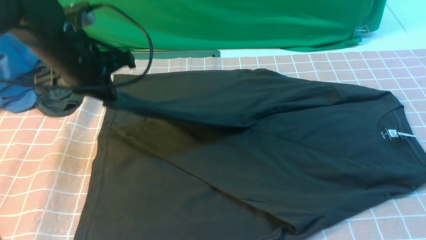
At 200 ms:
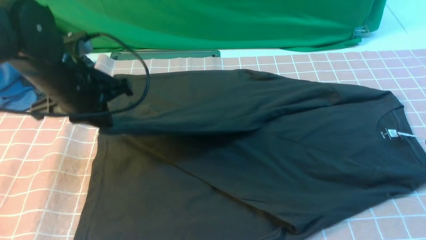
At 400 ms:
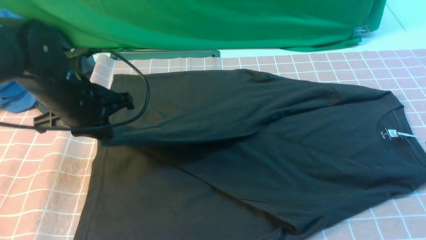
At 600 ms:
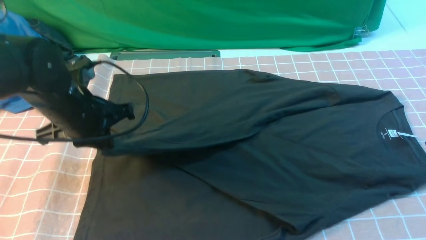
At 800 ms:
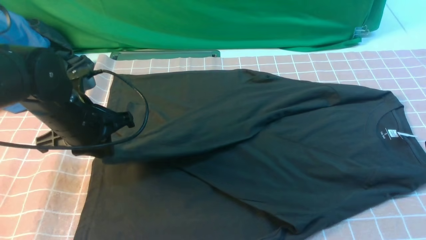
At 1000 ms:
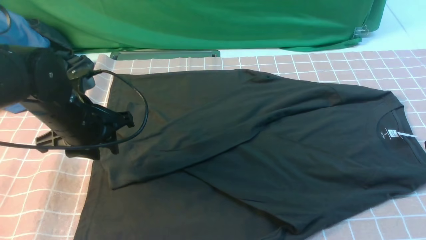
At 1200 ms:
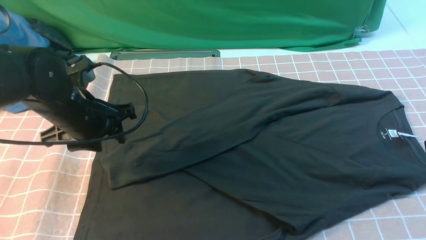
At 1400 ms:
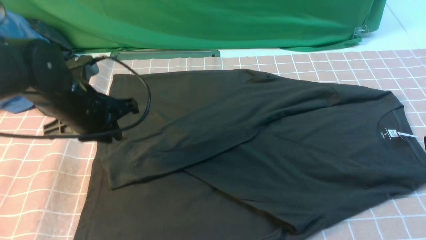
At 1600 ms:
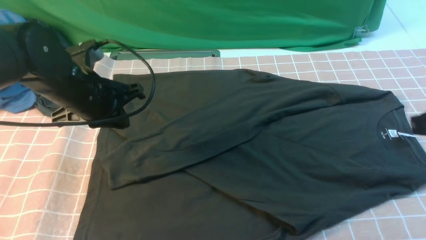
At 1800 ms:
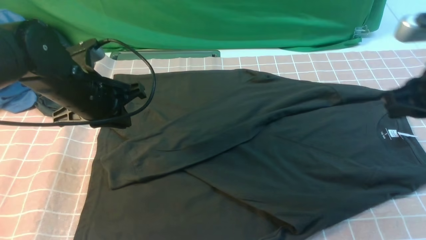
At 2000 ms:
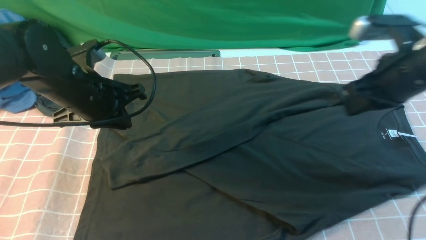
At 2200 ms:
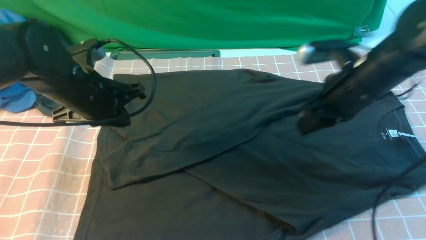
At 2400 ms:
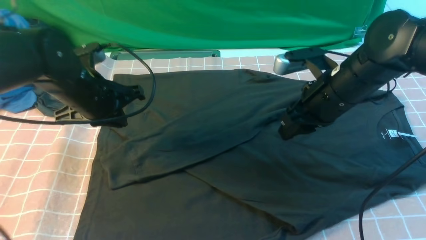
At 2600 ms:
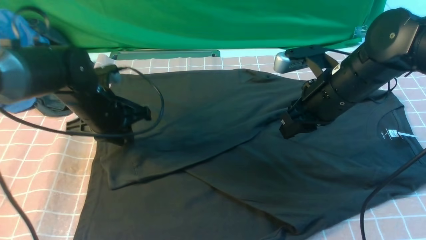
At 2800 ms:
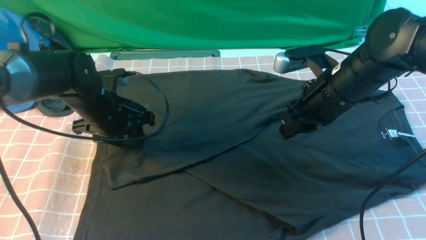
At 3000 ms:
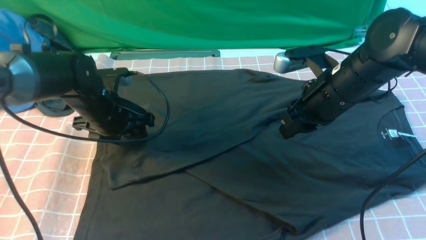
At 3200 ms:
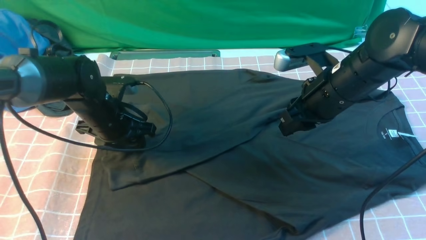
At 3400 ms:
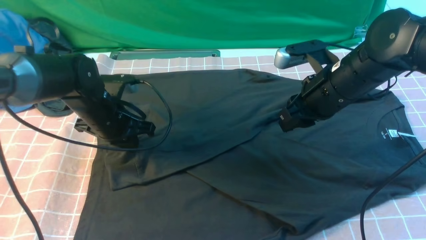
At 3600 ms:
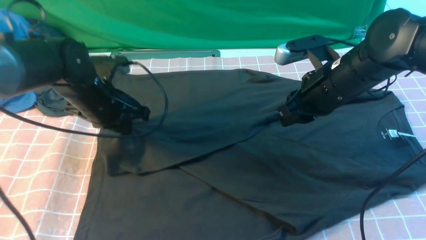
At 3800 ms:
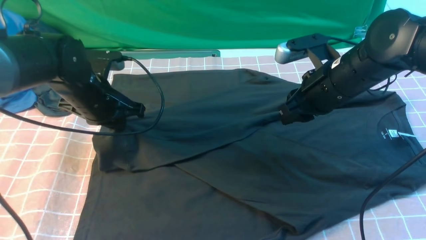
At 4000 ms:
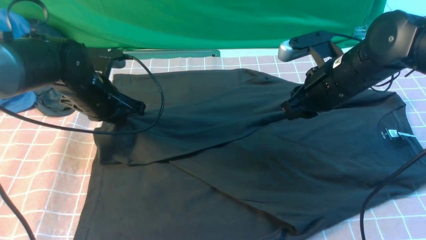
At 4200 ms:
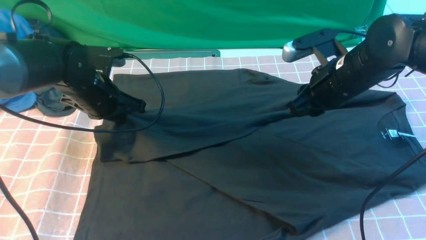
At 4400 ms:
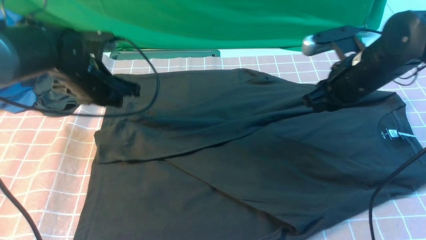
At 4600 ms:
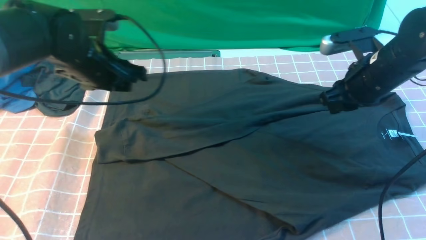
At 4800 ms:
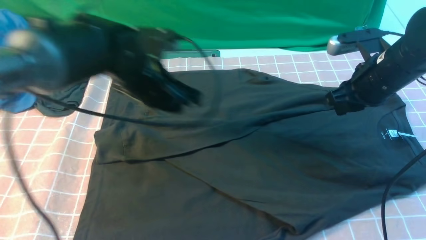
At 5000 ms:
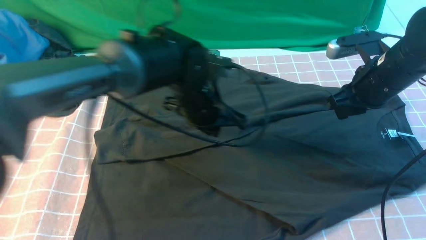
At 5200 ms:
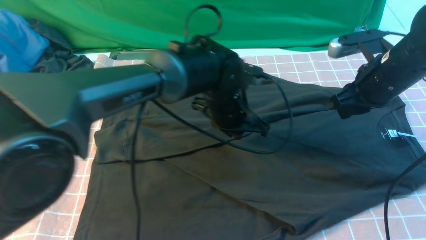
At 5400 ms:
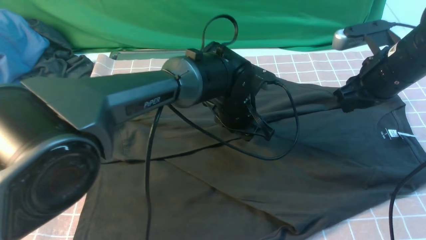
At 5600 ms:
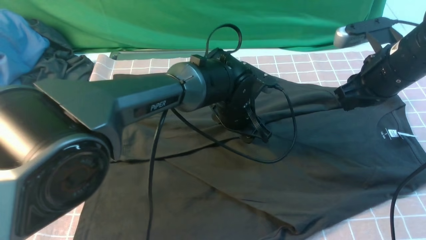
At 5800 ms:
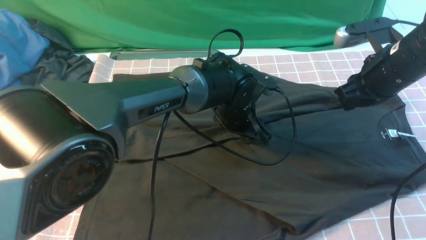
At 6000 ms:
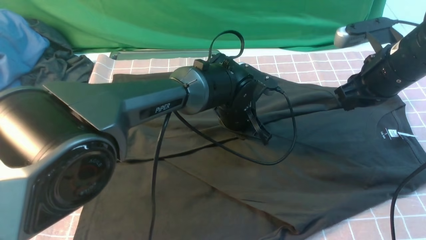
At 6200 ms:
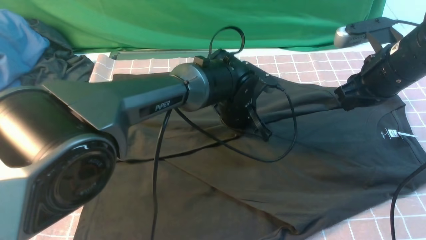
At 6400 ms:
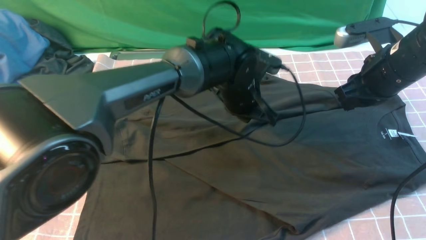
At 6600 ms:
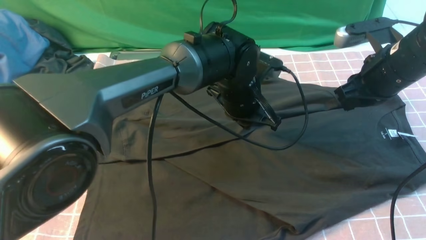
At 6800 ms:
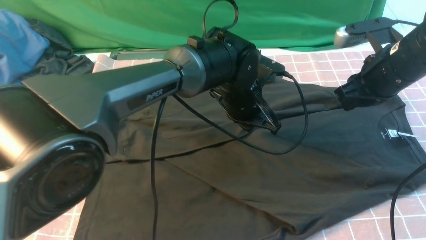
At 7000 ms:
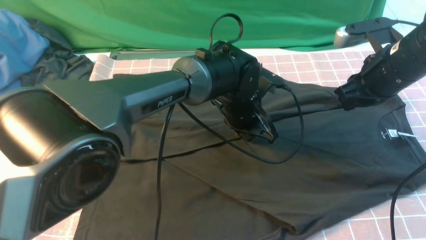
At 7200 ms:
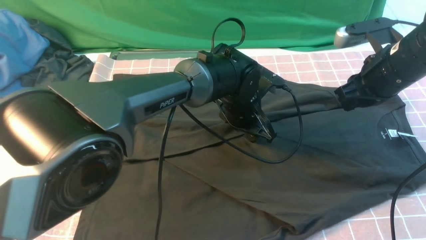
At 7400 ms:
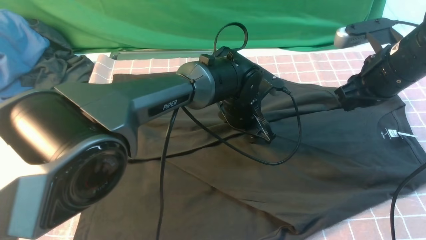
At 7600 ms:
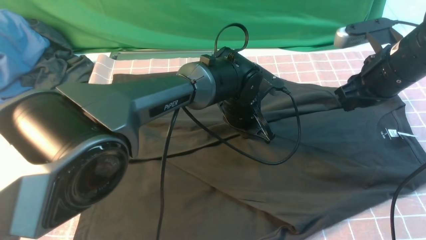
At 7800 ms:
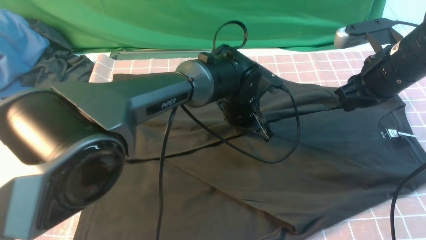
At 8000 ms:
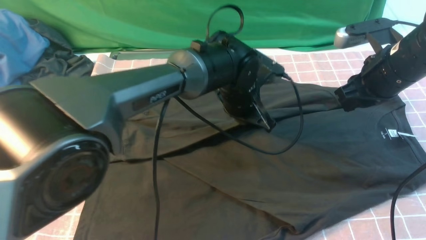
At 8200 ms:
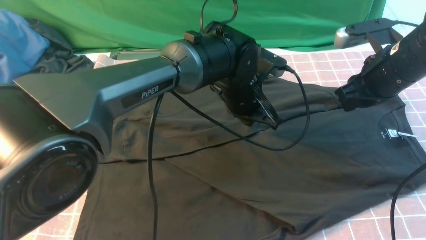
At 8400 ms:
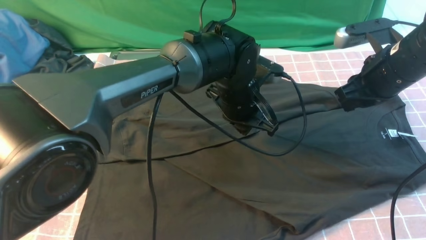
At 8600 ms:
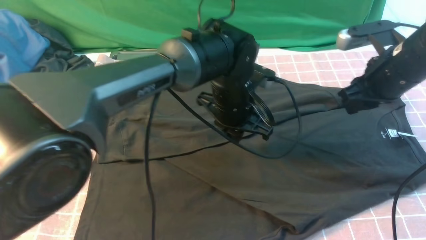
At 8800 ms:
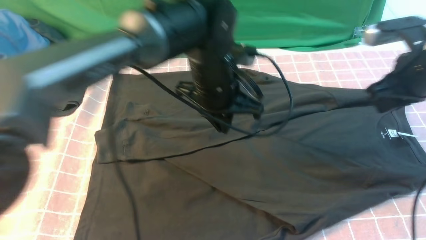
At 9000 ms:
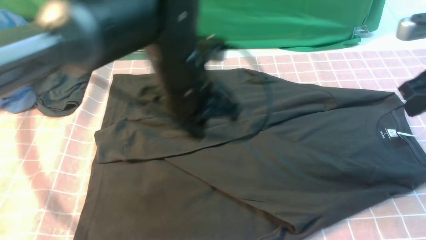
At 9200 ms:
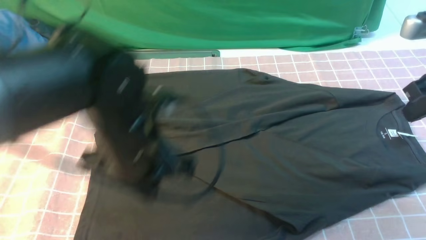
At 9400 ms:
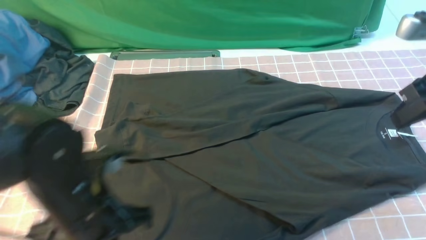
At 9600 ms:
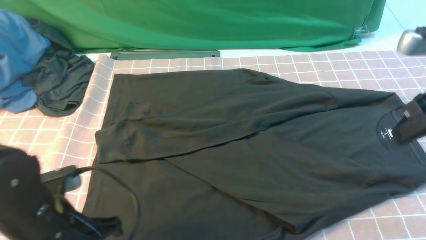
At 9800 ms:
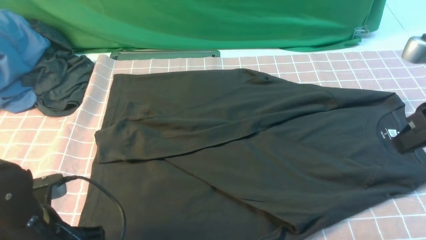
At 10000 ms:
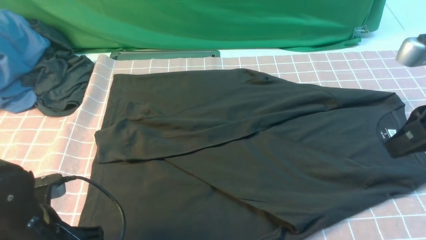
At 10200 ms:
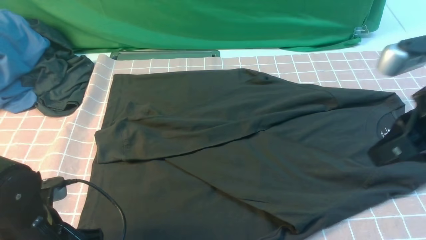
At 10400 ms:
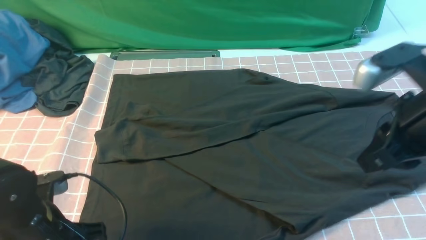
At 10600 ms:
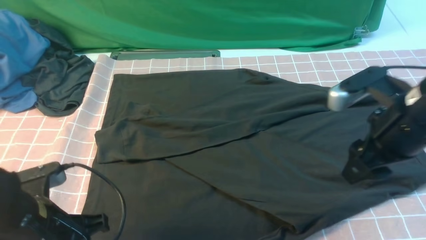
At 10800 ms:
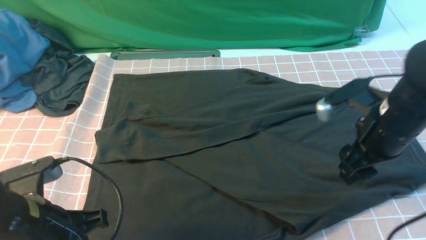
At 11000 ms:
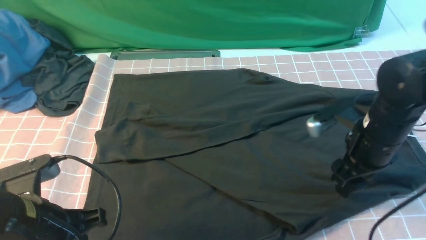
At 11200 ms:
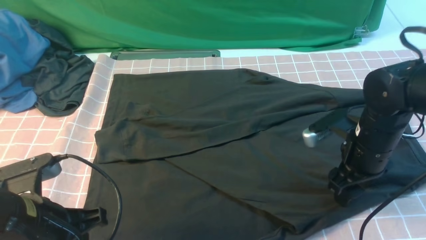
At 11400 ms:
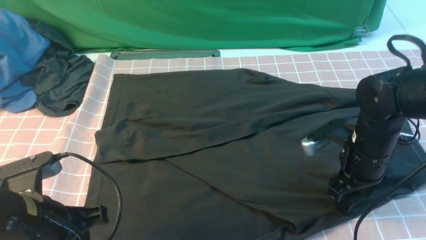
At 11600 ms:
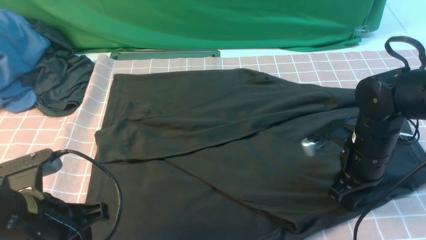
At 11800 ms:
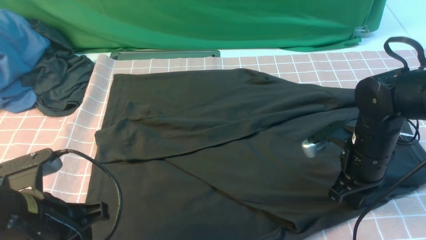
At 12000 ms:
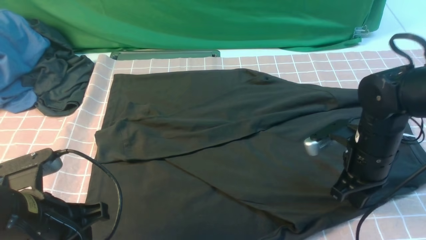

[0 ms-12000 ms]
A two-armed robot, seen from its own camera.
0 ms to 1600 ms: The left gripper opens and closes again. The right gripper travels forward by some 5 cm.
1600 ms to 3000 ms: The left gripper shifts some 10 cm downward, and opens its fingers. The right gripper goes about 20 cm forward, to the left and downward, and opens its fingers.
3000 ms to 4400 ms: The left gripper is displaced upward by roughly 5 cm, and closes its fingers. The right gripper moves about 5 cm.
4400 ms to 6000 ms: The left gripper is displaced to the right by roughly 25 cm, and opens, then closes once more.
6000 ms to 7600 ms: The left gripper closes, then reopens.
7600 ms to 9000 ms: The right gripper goes some 5 cm to the right, and closes. Meanwhile the left gripper shifts some 20 cm upward, backward and to the left, and closes.
9000 ms to 10400 ms: The right gripper heads to the left and backward, covering about 10 cm, and opens up. Meanwhile the left gripper is displaced to the left, backward and downward by some 20 cm, and opens its fingers.
10400 ms to 12000 ms: The left gripper closes. The right gripper shifts roughly 15 cm downward and forward, and closes.

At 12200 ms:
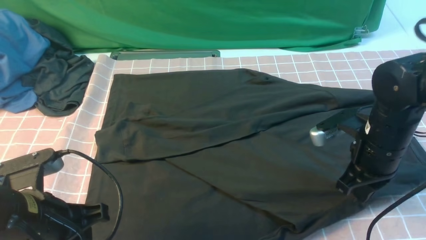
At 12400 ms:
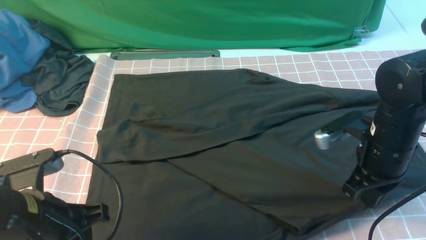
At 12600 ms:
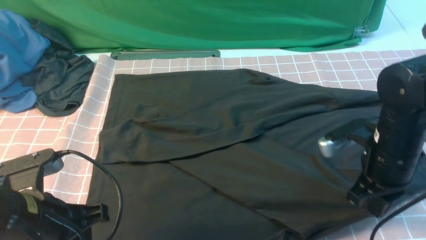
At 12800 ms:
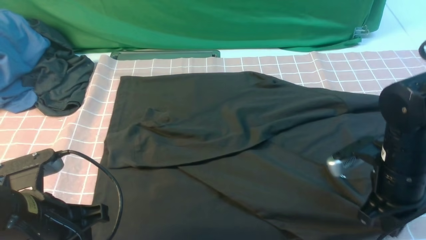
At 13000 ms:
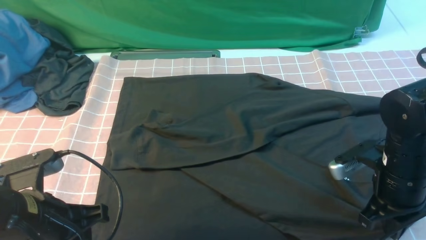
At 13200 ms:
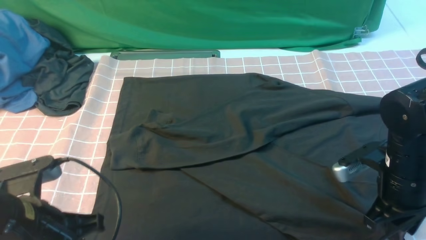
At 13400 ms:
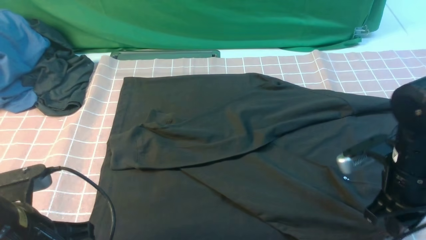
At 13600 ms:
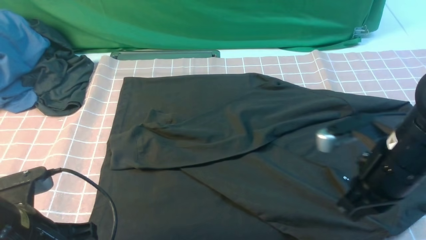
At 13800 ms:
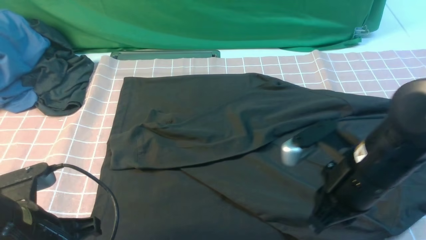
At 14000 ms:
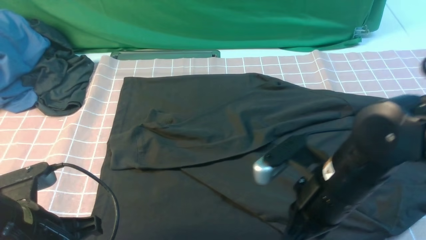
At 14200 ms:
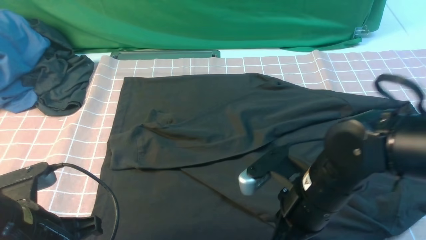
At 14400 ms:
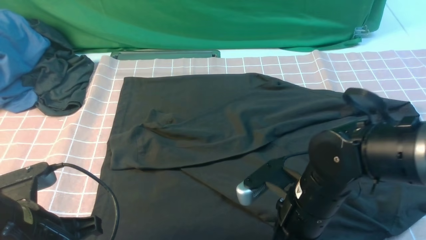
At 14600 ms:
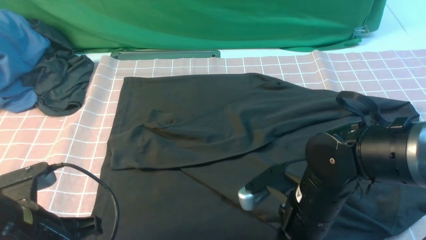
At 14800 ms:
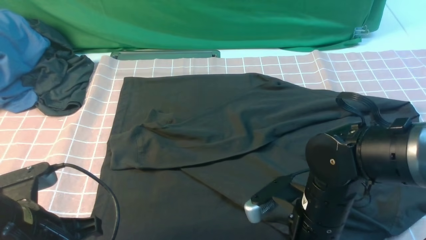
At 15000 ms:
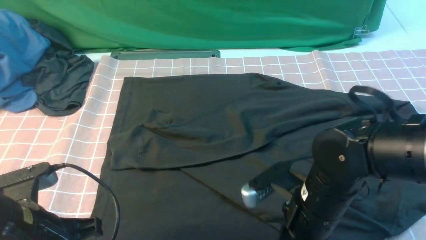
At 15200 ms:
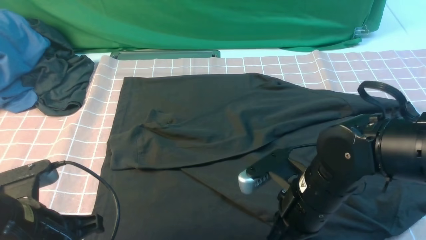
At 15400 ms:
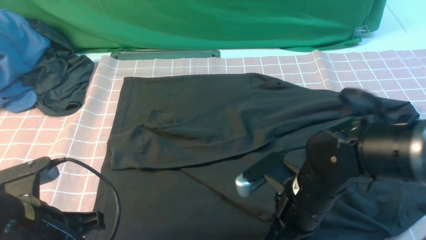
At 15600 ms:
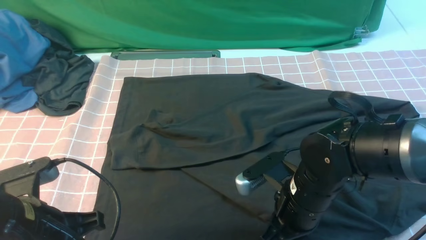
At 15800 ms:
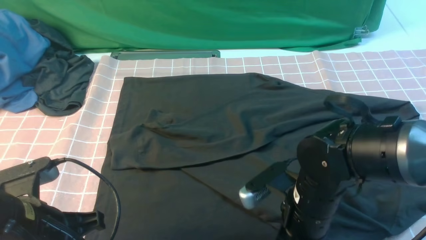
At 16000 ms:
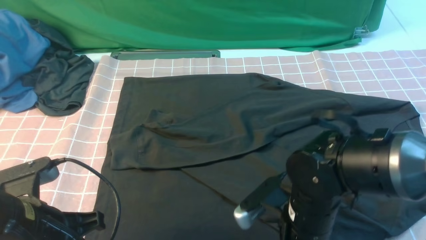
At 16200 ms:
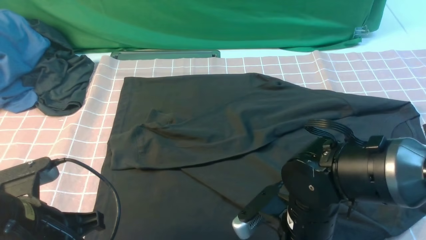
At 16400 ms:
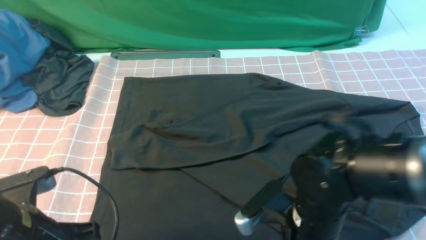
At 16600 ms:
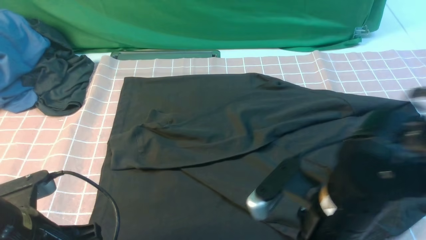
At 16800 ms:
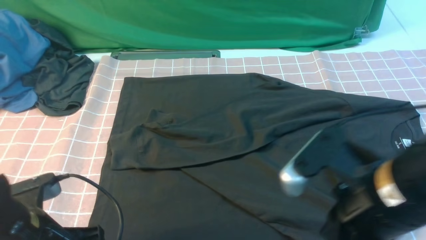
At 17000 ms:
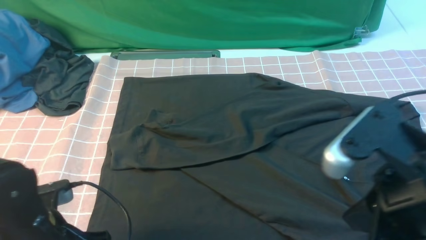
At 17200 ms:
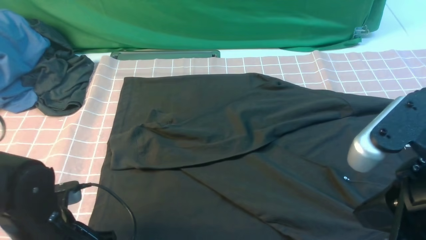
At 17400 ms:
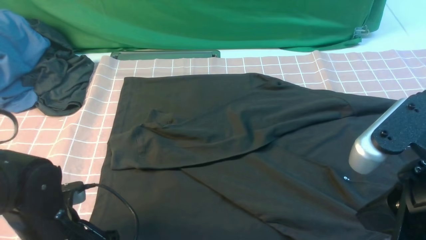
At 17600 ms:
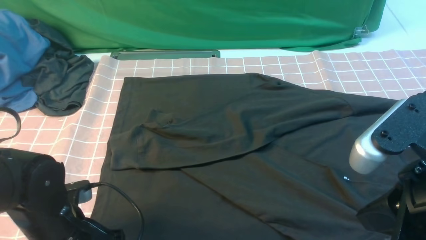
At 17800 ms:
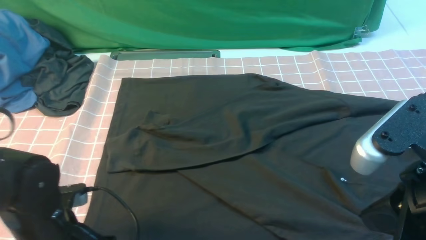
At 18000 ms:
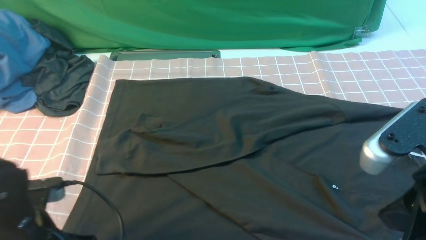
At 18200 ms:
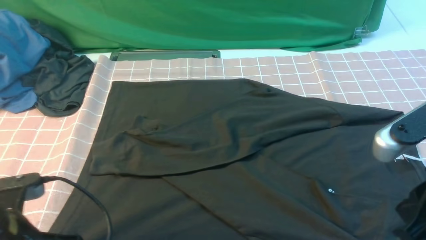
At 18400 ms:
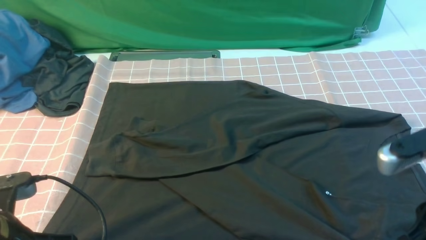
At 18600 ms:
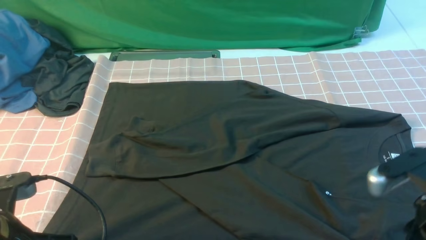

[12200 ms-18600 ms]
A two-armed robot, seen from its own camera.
12200 ms to 13800 ms: The right gripper shifts roughly 10 cm backward and to the left, and opens, then closes once more.
13800 ms to 15400 ms: The right gripper shifts approximately 10 cm downward and to the left.
15400 ms to 17000 ms: The right gripper shifts roughly 20 cm upward, backward and to the right, while the left gripper opens up.
17000 ms to 18600 ms: The left gripper shifts by some 5 cm, and closes its fingers. The right gripper moves downward and to the right, some 10 cm.
